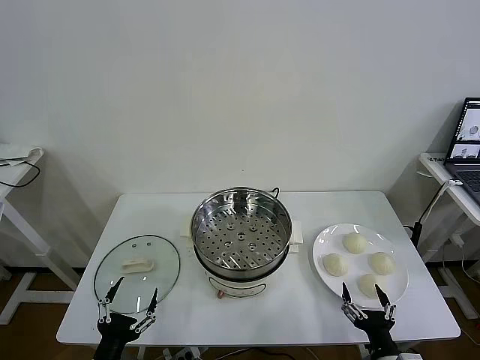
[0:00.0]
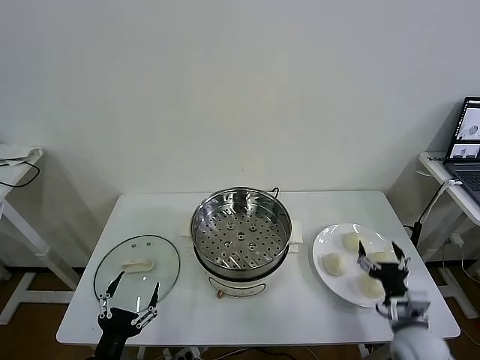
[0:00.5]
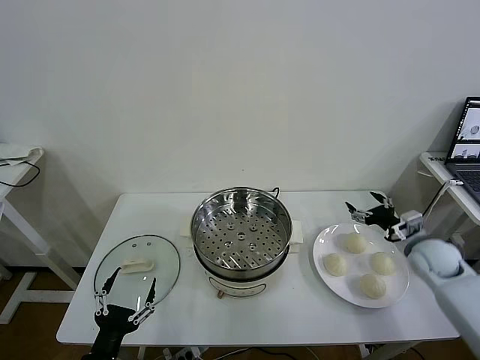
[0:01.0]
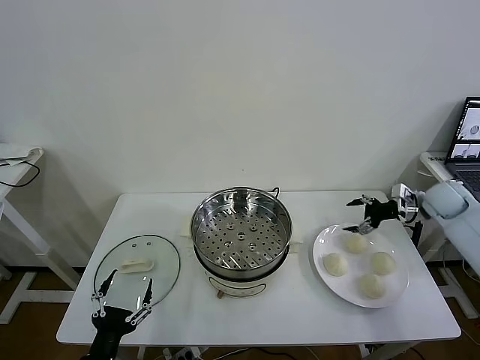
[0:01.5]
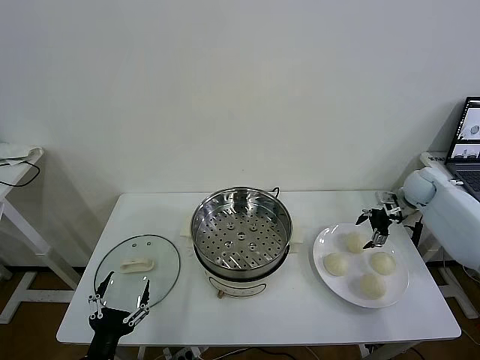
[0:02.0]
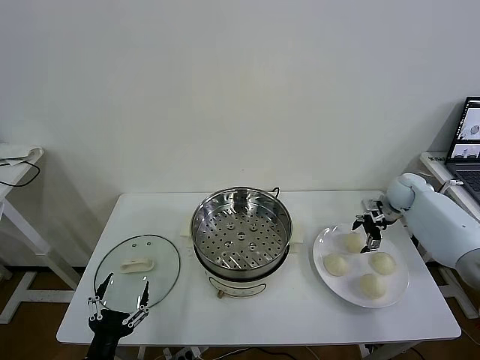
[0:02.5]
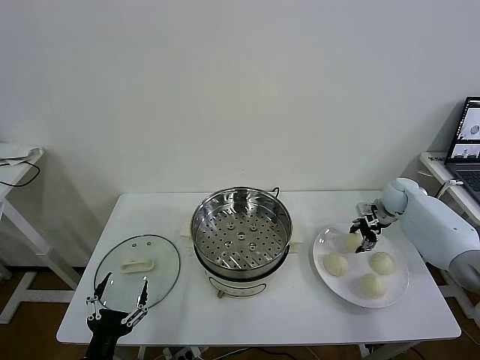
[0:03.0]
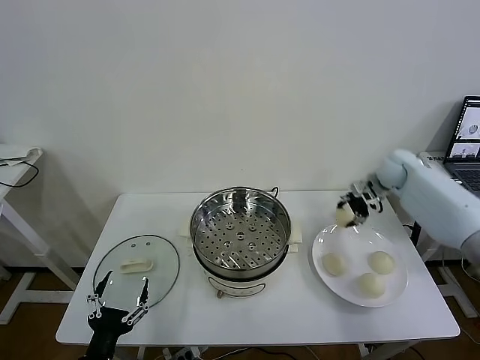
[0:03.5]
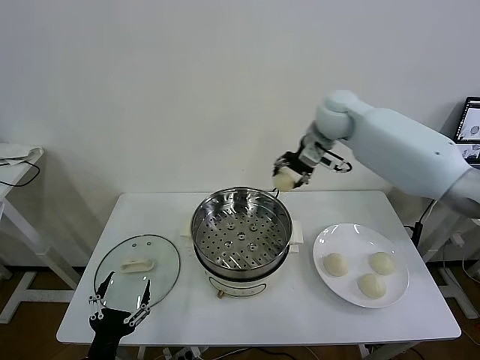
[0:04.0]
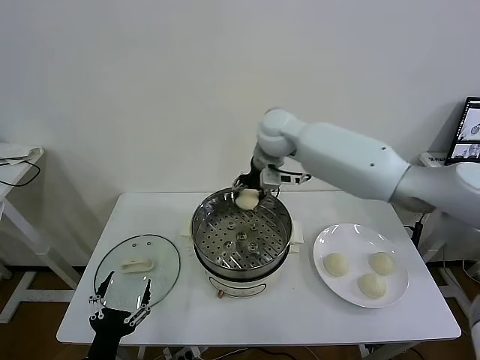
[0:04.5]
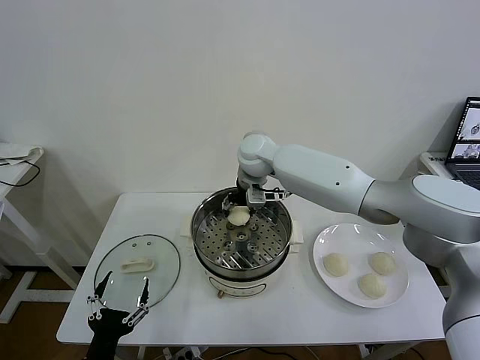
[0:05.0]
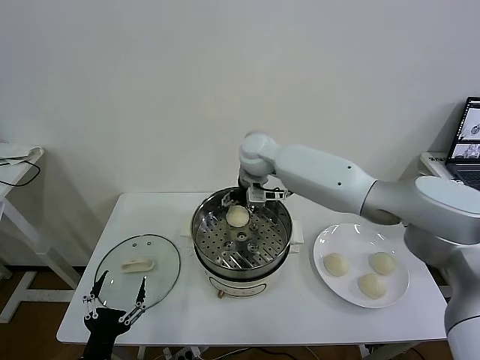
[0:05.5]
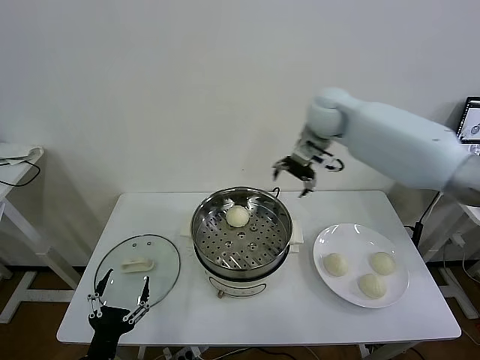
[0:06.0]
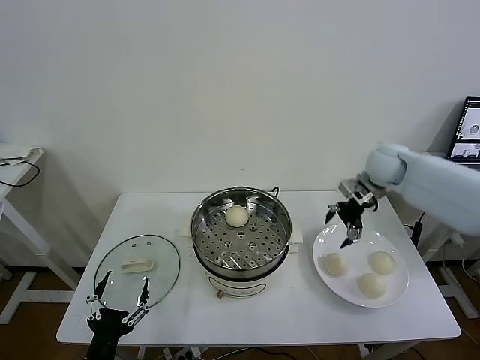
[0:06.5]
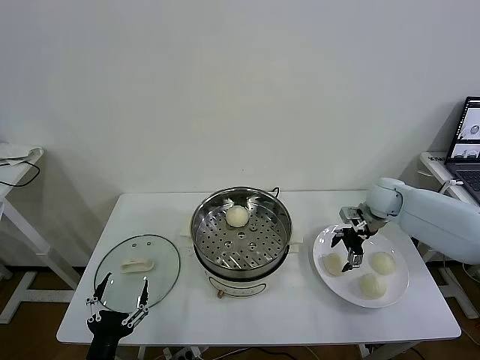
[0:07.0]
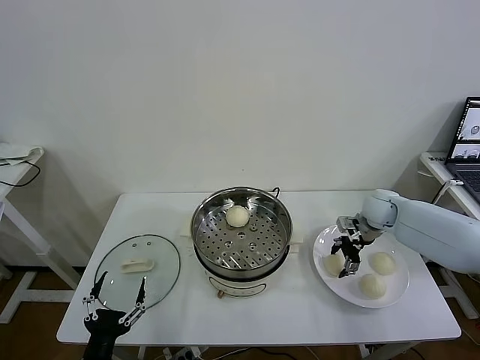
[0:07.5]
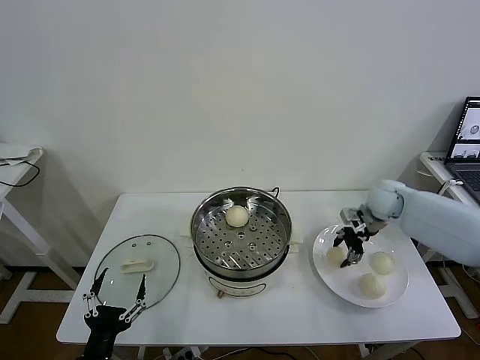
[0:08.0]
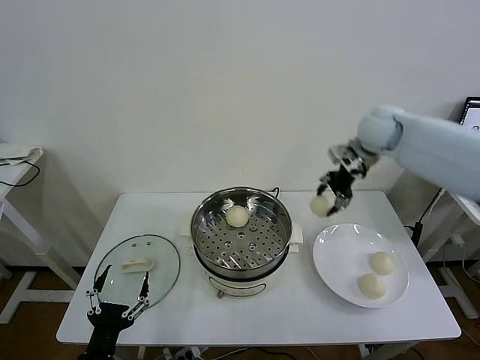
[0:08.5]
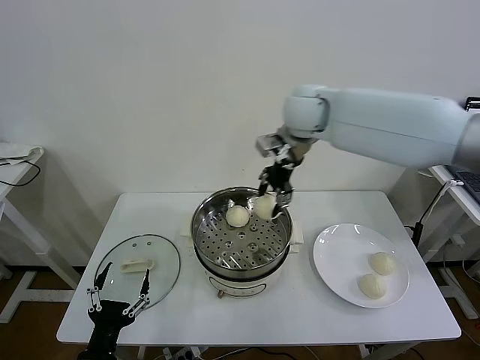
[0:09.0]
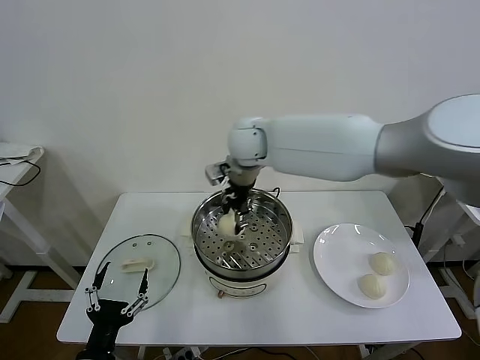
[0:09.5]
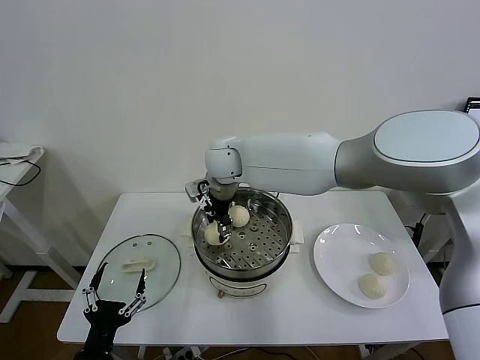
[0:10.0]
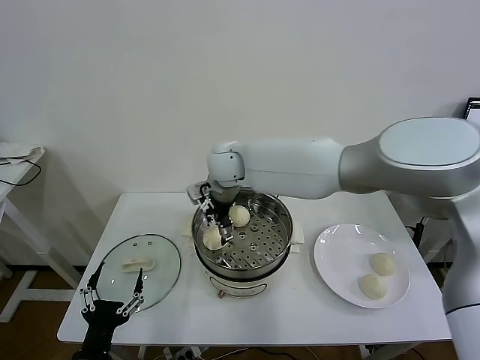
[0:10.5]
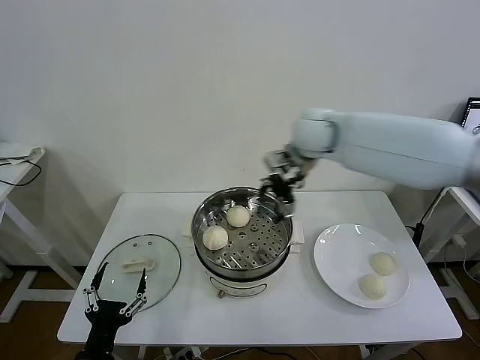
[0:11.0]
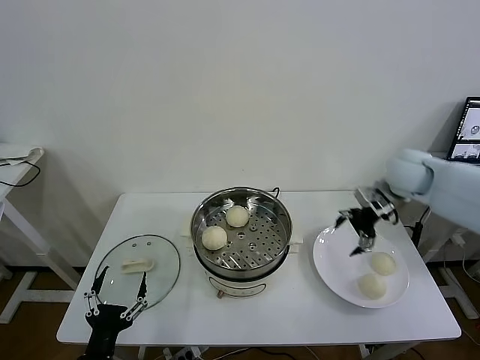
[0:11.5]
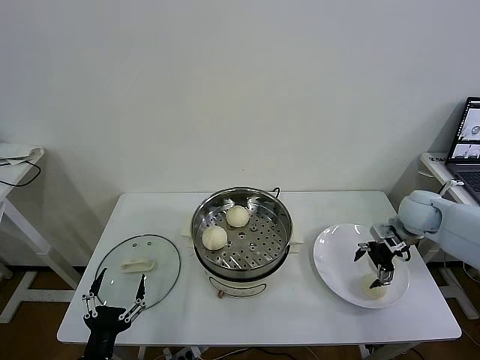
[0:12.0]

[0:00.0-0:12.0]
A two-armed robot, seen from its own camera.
Task of the whole recording: take steamed baozi put them in steamer then cover it.
Step, 0:00.0 to 0:03.0: Grasp the baozi in the plate with right gripper.
Step, 0:03.5 to 0:05.0: Place the baozi on the steamer with right gripper.
Step, 0:05.5 to 0:07.5: Grasp the baozi in the plate with right gripper.
Step, 0:08.0 to 0:10.0: Place the baozi on the steamer with right gripper.
0:02.0 to 0:04.0: The right gripper goes roughly 40 cm to the left and upward, and closes its fingers.
0:04.0 to 0:06.0: The right gripper is displaced to the right by roughly 10 cm, and opens its fingers.
0:06.0 to 0:08.0: The right gripper heads downward and to the right, covering about 15 cm, and closes.
0:08.0 to 0:10.0: The right gripper is displaced to the left by some 40 cm.
0:10.0 to 0:12.0: The right gripper is displaced to the right by some 50 cm, and opens its fingers.

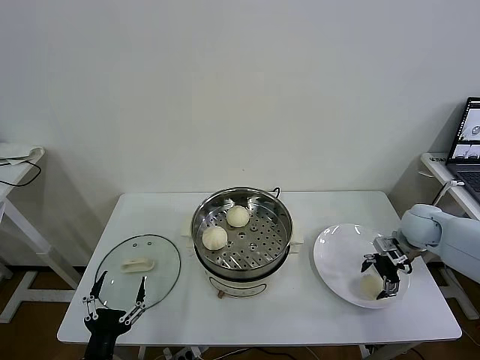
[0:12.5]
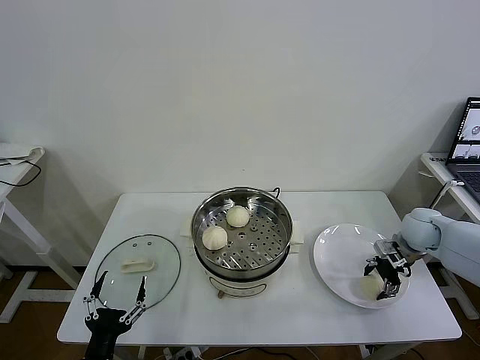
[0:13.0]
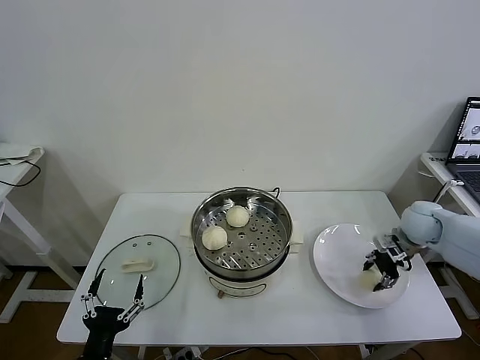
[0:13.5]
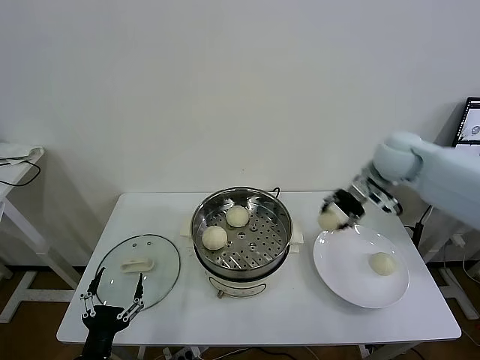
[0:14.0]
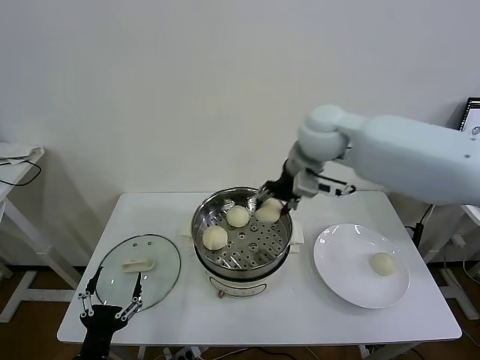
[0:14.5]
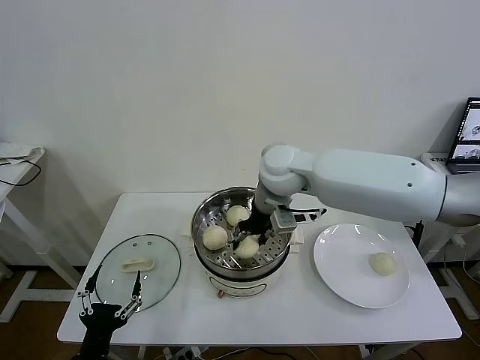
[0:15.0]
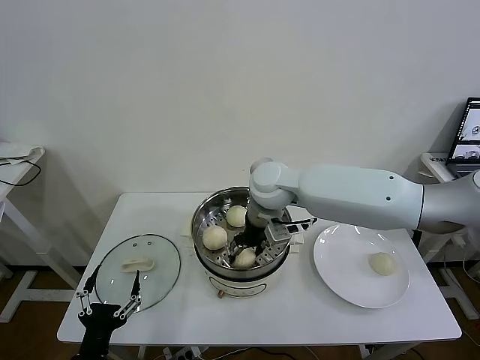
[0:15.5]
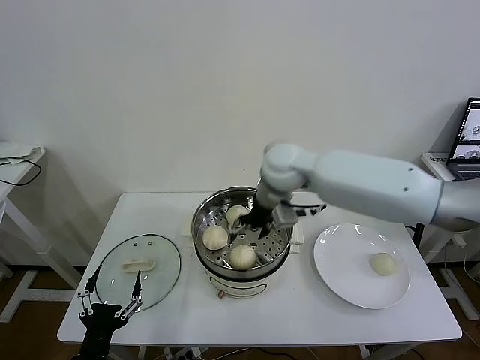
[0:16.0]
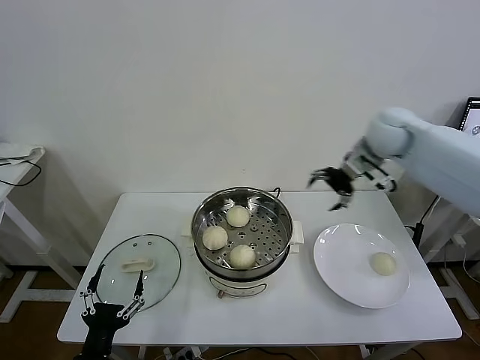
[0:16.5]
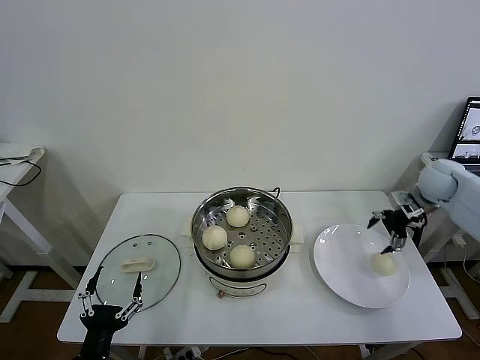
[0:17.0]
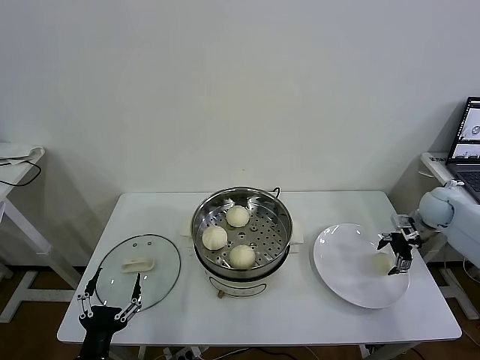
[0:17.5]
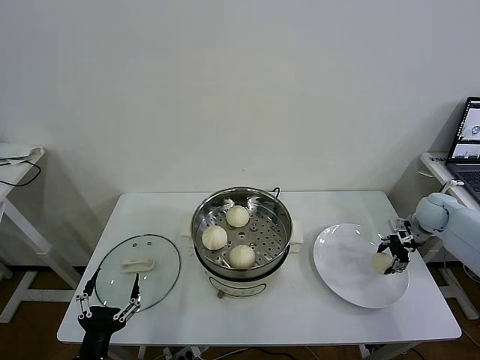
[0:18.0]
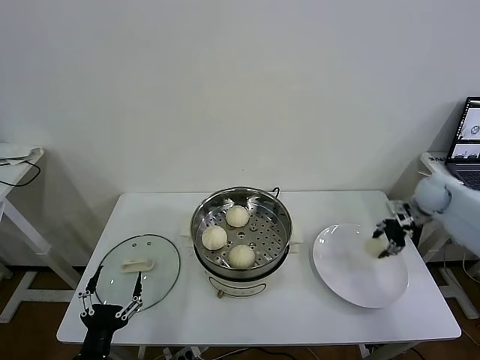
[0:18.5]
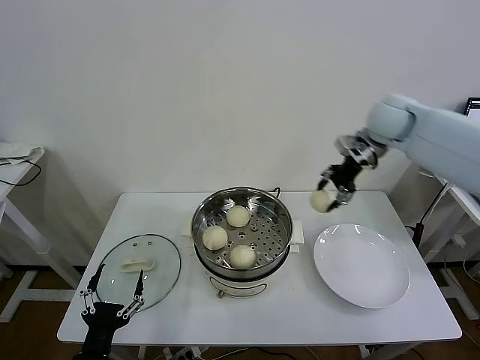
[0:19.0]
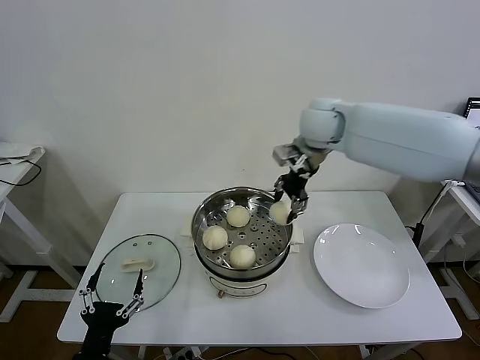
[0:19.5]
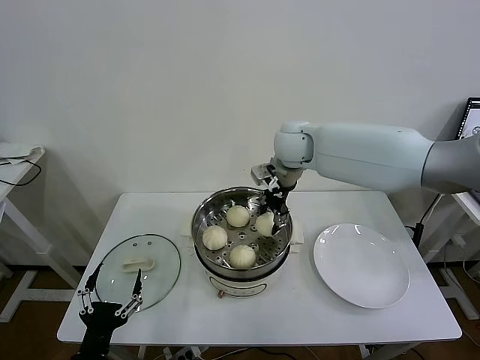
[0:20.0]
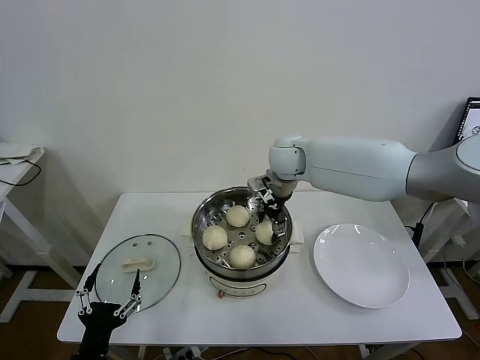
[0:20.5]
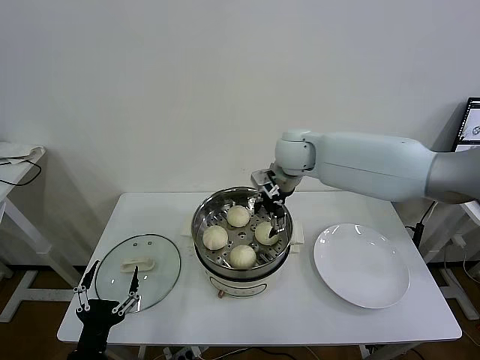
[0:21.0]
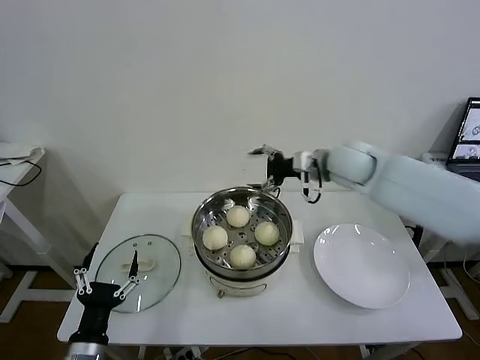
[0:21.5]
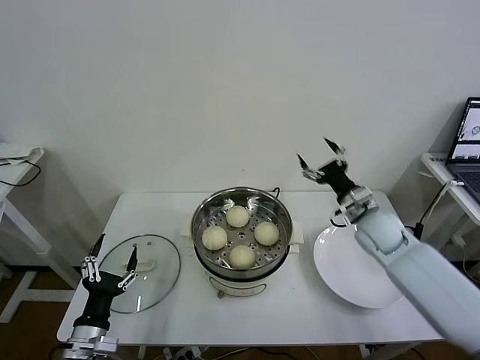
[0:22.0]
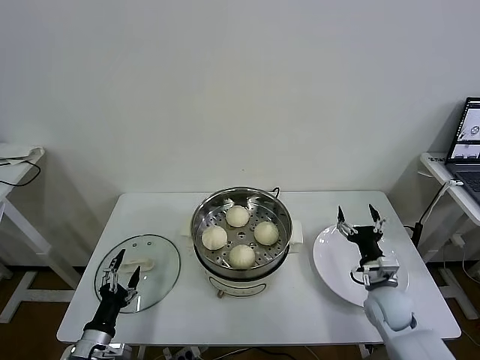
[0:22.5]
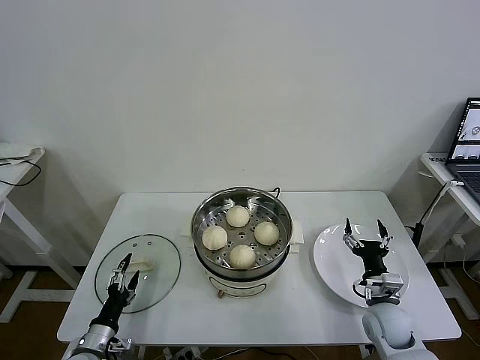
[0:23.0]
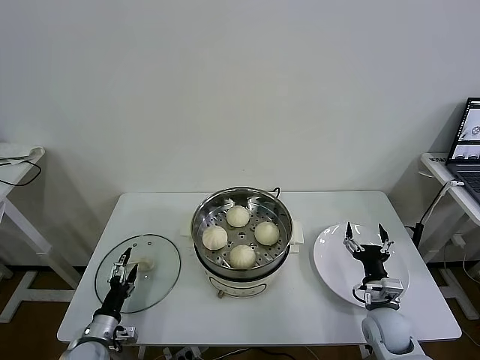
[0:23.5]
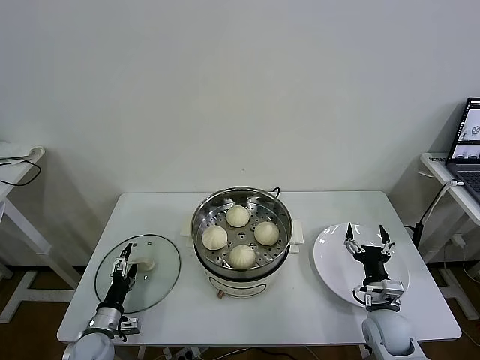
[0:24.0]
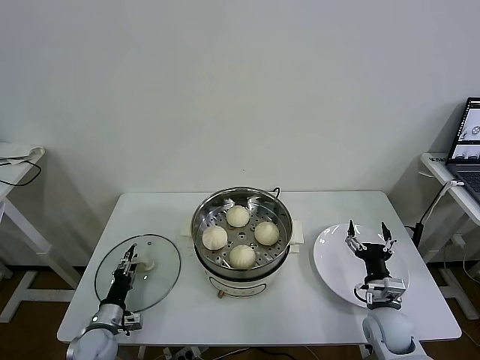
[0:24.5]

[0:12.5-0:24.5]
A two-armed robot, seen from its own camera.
Task of the whole recording: take steamed baozi put them in steamer then cover it.
Step, 0:13.5 to 0:15.5: Place the baozi on the steamer with right gripper.
Step, 0:16.0 to 0:18.0: Grasp the baozi in the plate with right gripper.
Step, 0:18.5 to 0:20.5: Place the baozi on the steamer with right gripper.
0:12.5 to 0:14.5: The right gripper goes about 40 cm to the left and upward, and closes its fingers.
0:14.5 to 0:16.5: The right gripper is displaced to the right by some 25 cm, and opens up.
0:16.5 to 0:18.5: The right gripper shifts some 15 cm downward and to the right, and closes up.
0:18.5 to 0:20.5: The right gripper travels to the left by some 35 cm, and opens.
0:20.5 to 0:22.5: The left gripper shifts about 10 cm forward, downward and to the left. Meanwhile the right gripper heads downward, backward and to the right, covering some 40 cm, and opens its fingers.
0:22.5 to 0:24.5: The left gripper moves forward and downward, some 10 cm, and closes up.

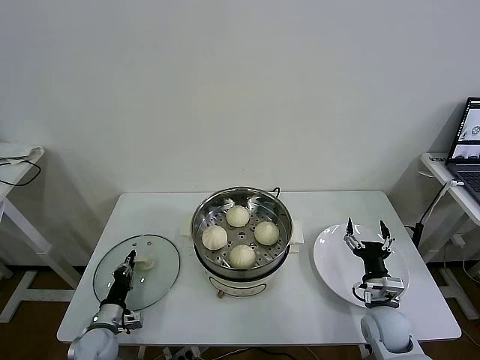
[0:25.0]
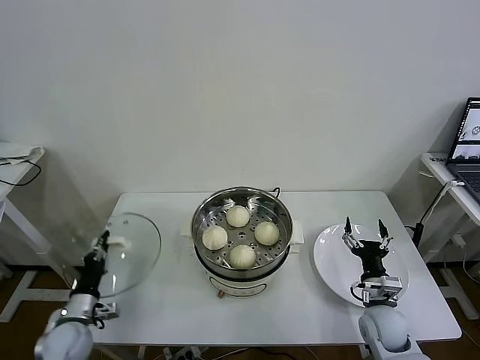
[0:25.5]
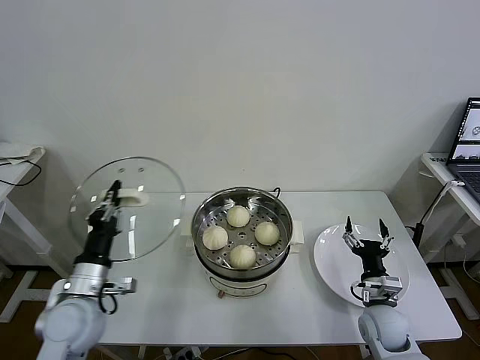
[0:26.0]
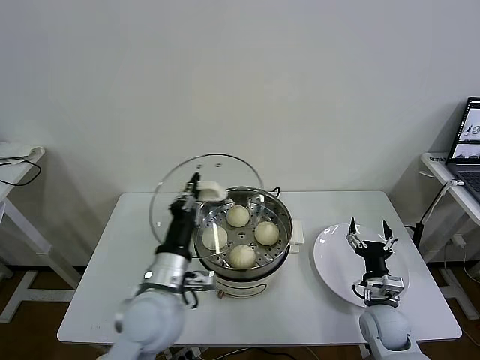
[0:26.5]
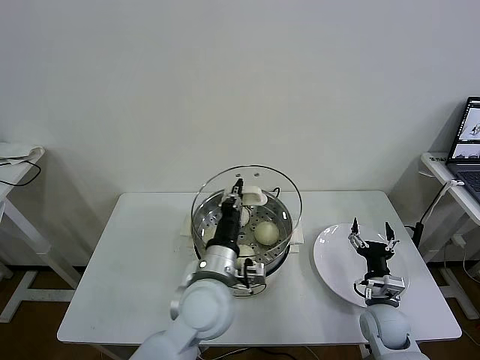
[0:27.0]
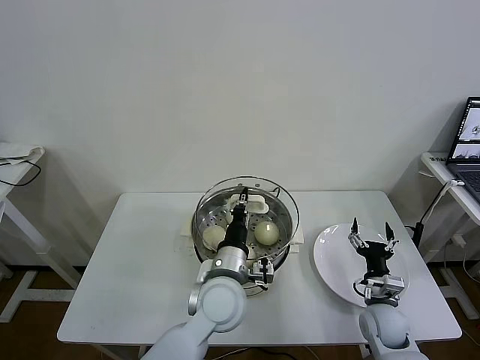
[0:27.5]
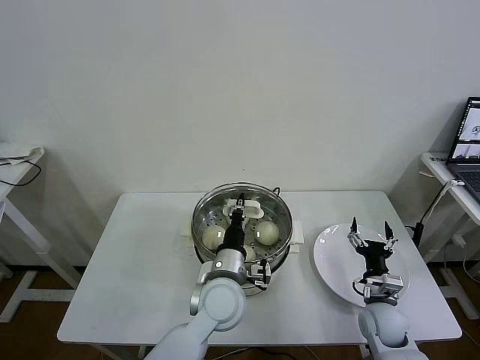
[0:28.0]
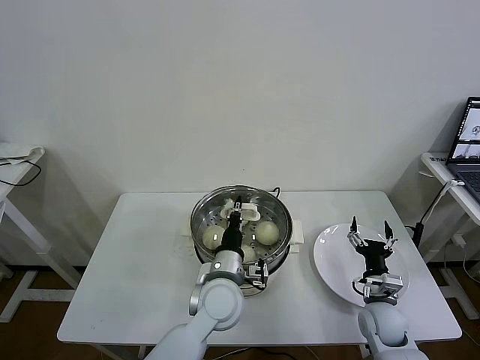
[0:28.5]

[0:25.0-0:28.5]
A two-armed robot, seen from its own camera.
Task of the whole recording: take steamed baozi put them in steamer then cover it.
0:25.0 to 0:27.0: The left gripper moves to the right and upward, some 40 cm.
0:27.0 to 0:28.5: The left gripper travels downward by roughly 5 cm.
